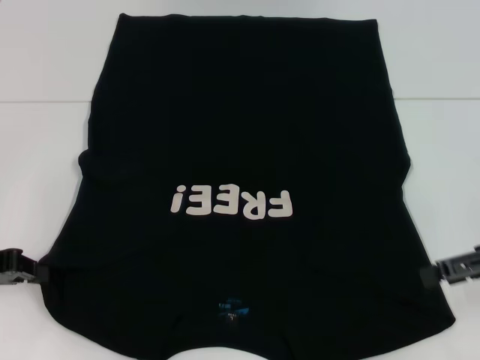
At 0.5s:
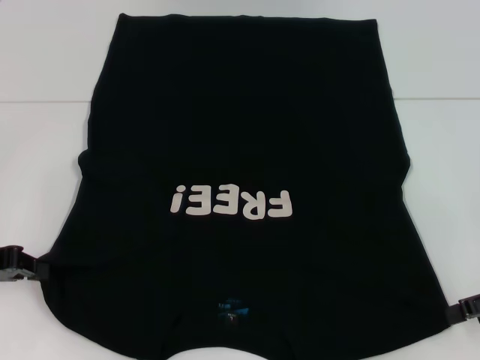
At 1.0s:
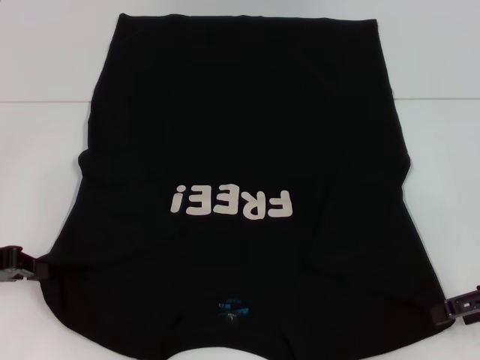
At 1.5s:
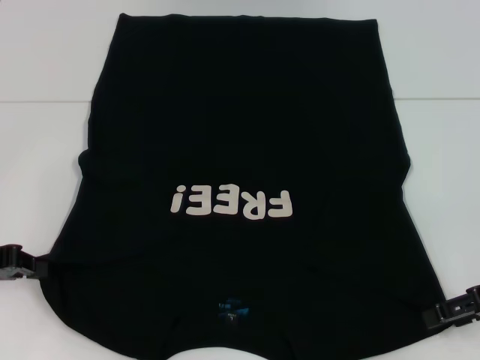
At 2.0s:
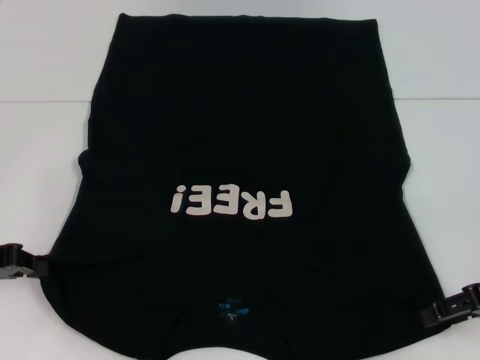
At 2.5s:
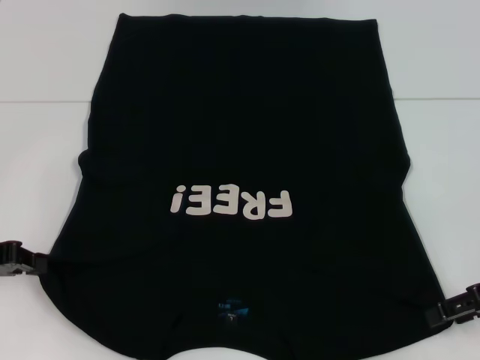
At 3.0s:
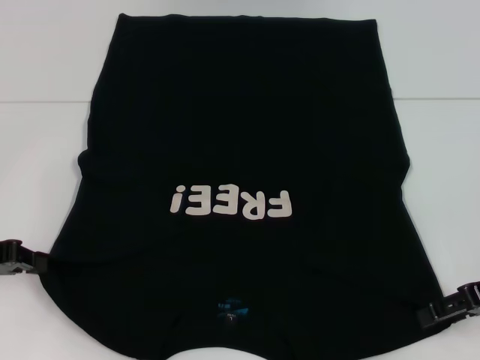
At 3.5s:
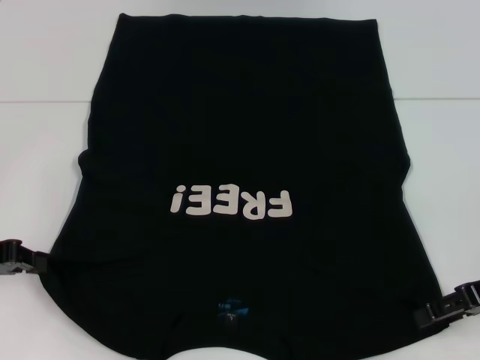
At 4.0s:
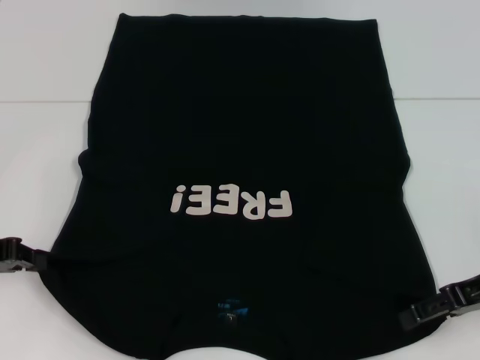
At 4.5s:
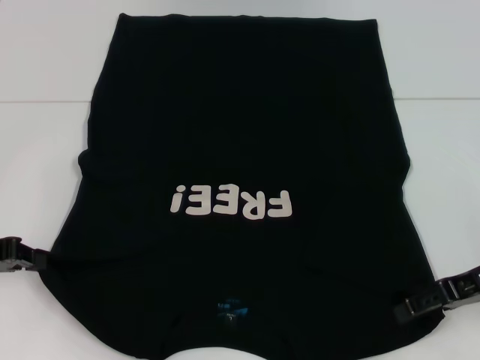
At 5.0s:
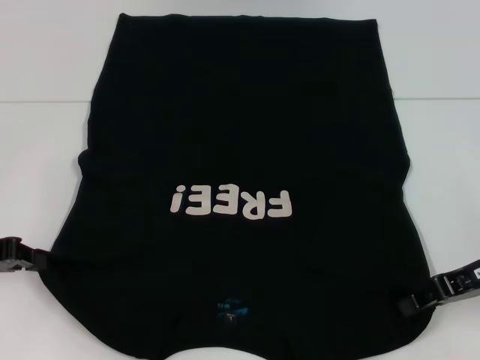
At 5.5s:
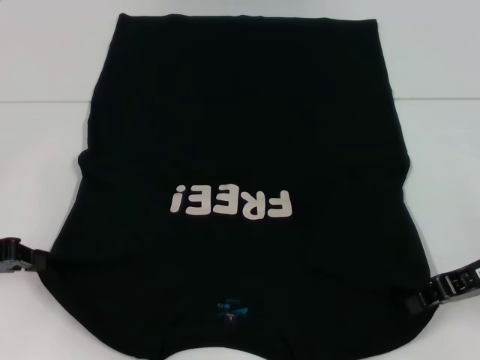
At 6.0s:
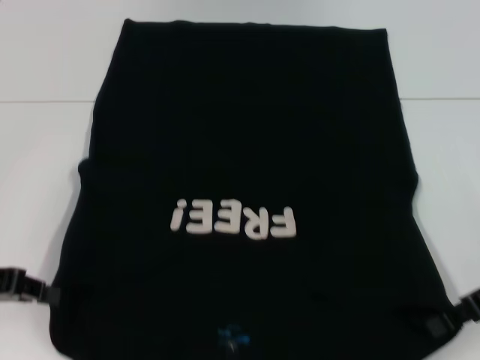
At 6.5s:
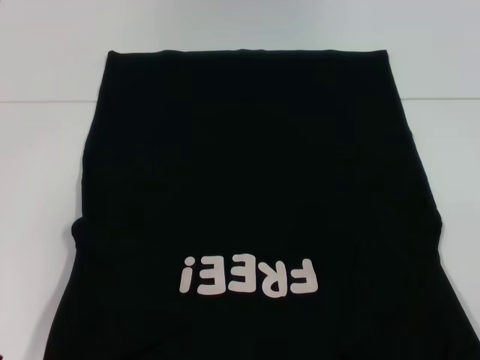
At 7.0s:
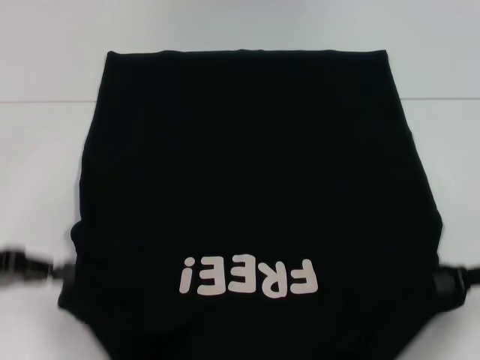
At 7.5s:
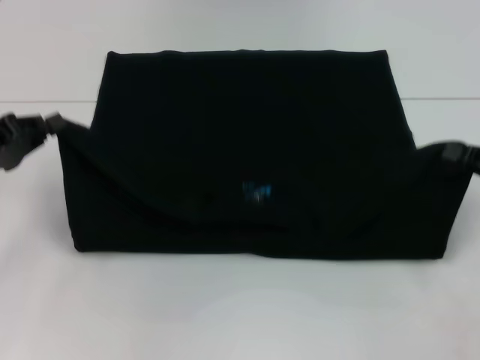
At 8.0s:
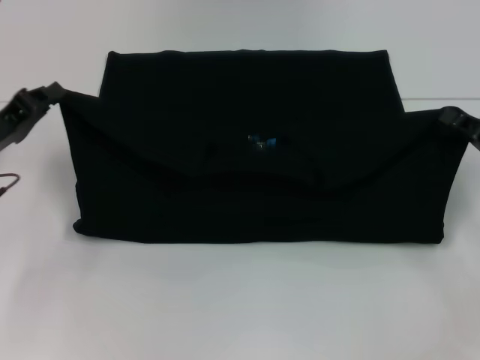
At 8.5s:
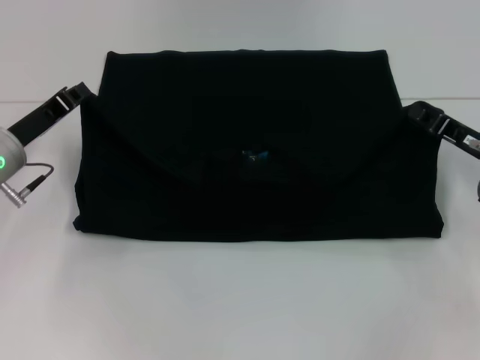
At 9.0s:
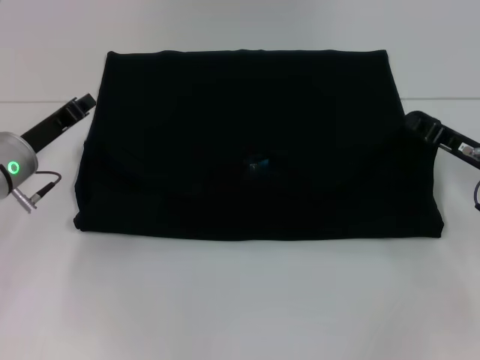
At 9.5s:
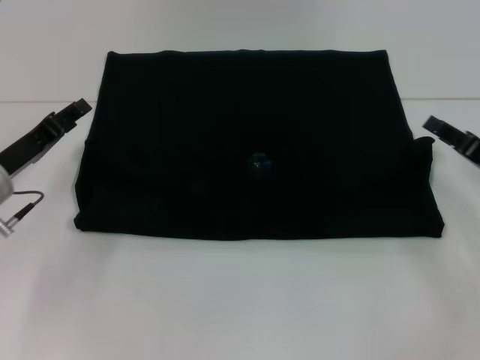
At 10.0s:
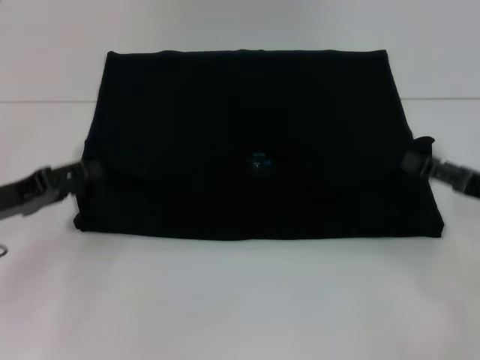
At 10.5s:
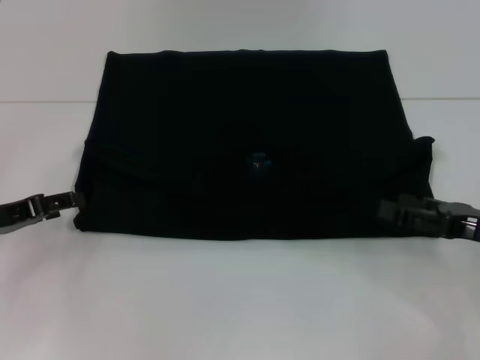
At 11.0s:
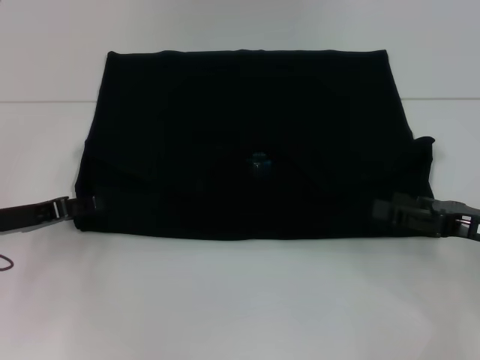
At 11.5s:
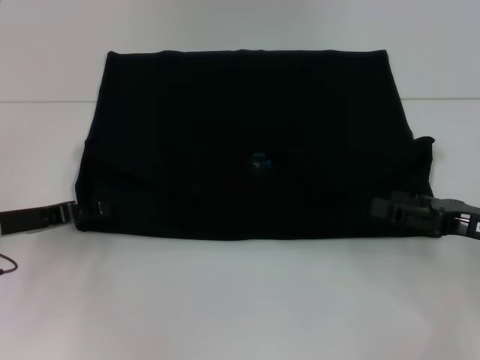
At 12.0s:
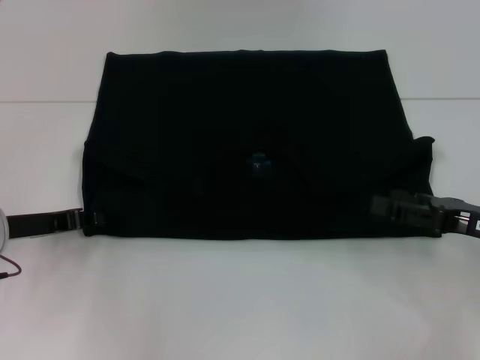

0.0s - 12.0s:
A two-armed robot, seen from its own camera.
Step, 0.0s - 5.5s: Grab the bottom right corner with your right hand.
Step, 6.0s - 9.5s: Fold the clothes with your left hand.
Step, 6.0s - 9.5s: Fold the clothes with your right hand.
0.0s - 4.0s: The grippers make only small movements.
4.0s - 6.0s: The right gripper closes its fingers.
6.0s - 8.0s: The right gripper moves some 5 cm; the left gripper shifts some 5 cm forward.
8.0s - 10.0s: The right gripper opens its fingers. Meanwhile the left gripper opens its fingers.
10.0s - 12.0s: The left gripper closes its fingers.

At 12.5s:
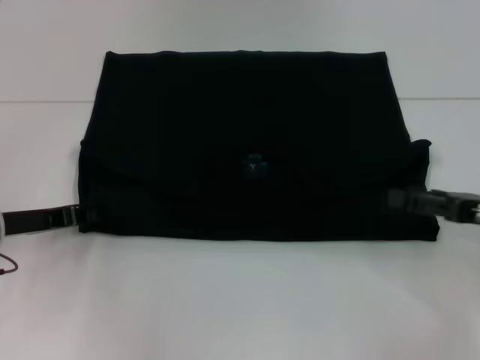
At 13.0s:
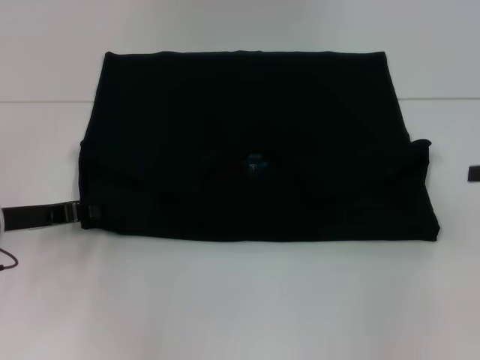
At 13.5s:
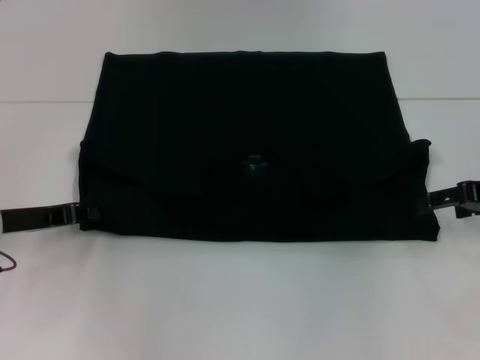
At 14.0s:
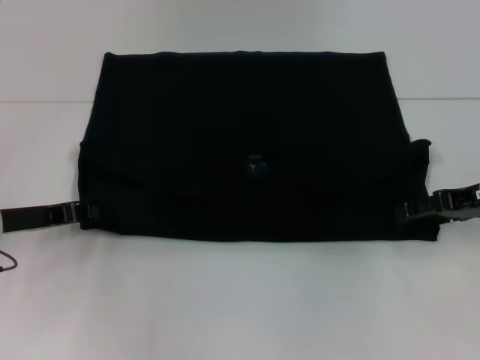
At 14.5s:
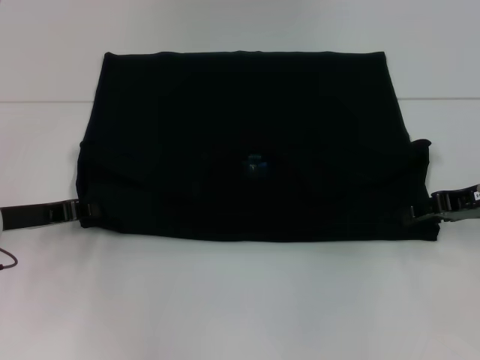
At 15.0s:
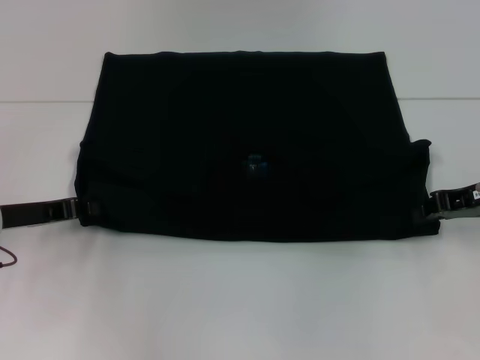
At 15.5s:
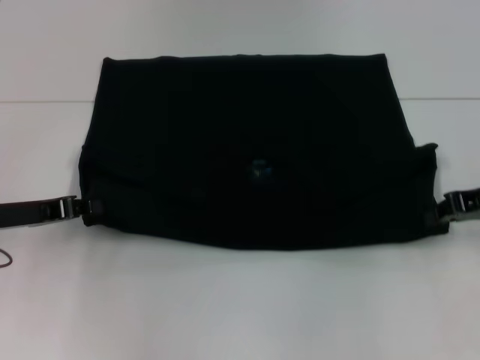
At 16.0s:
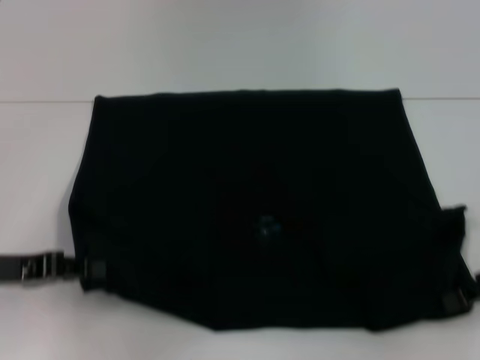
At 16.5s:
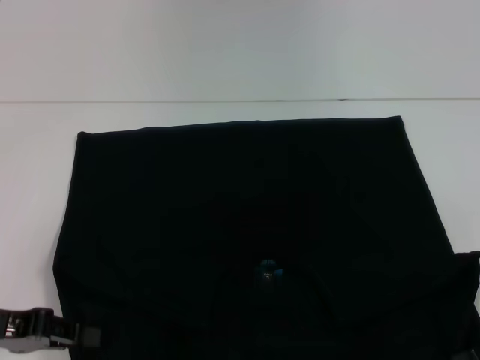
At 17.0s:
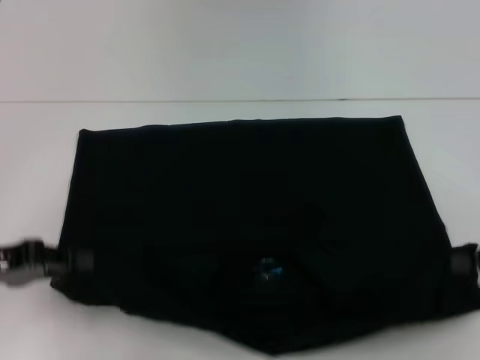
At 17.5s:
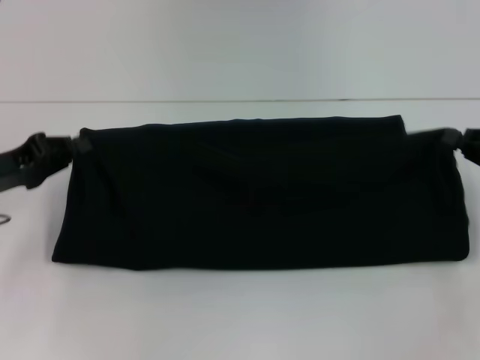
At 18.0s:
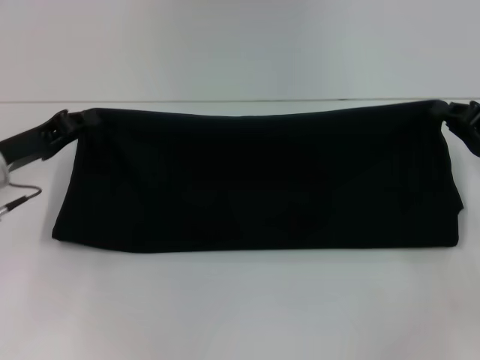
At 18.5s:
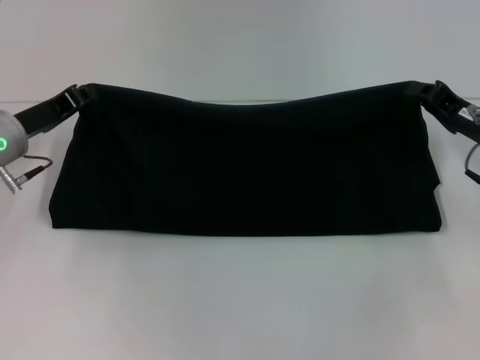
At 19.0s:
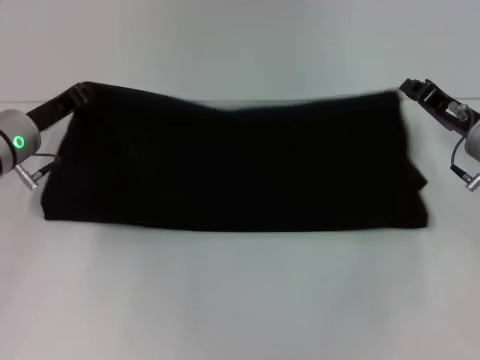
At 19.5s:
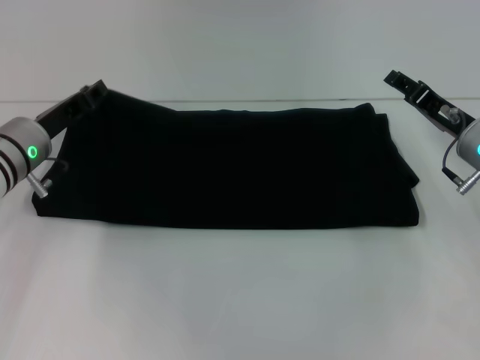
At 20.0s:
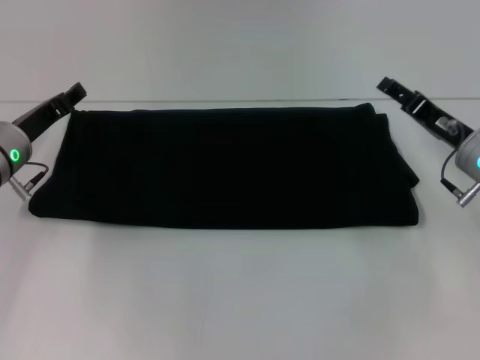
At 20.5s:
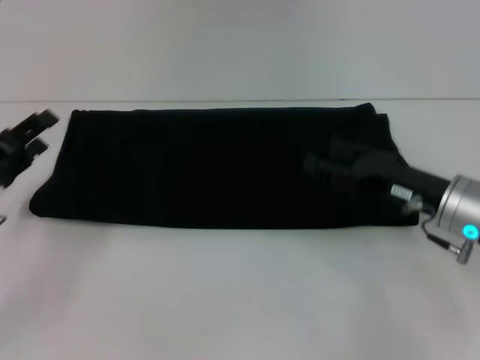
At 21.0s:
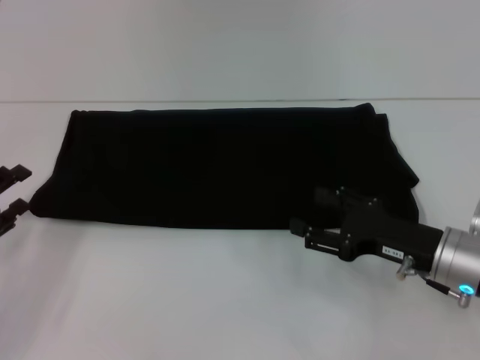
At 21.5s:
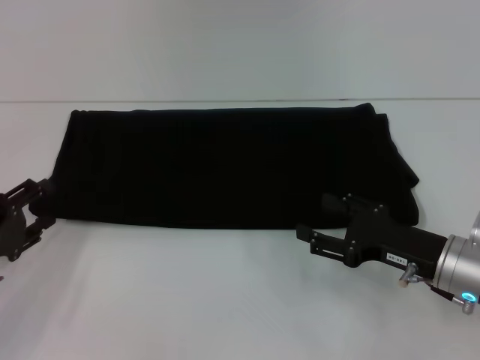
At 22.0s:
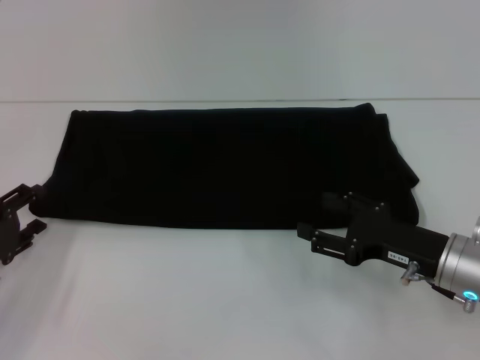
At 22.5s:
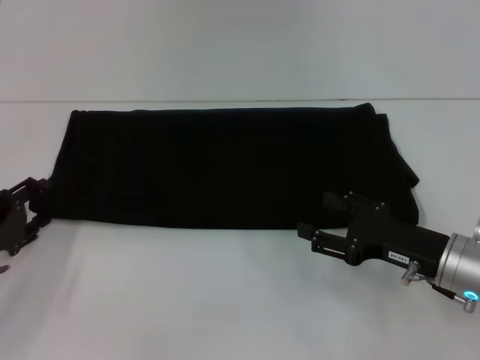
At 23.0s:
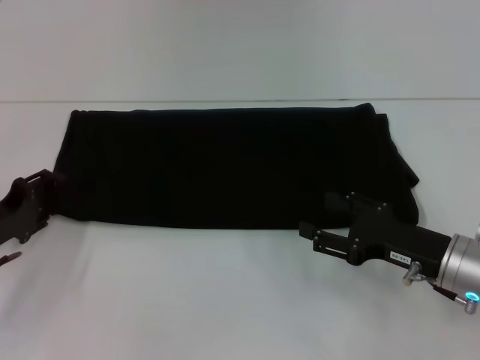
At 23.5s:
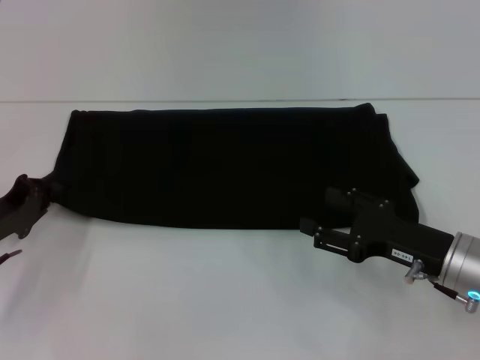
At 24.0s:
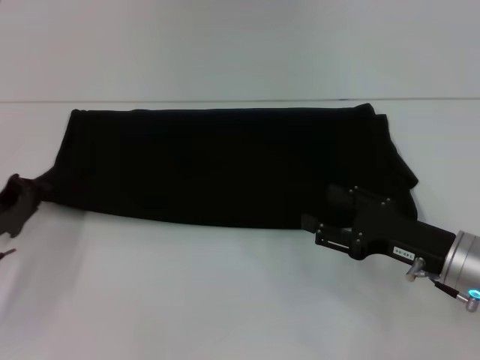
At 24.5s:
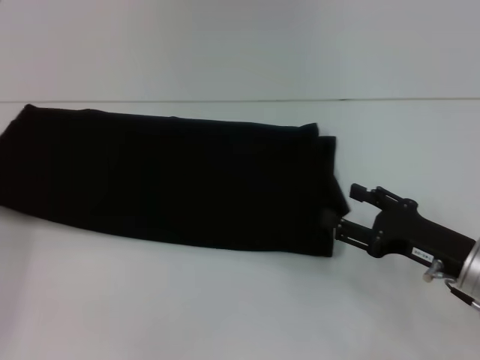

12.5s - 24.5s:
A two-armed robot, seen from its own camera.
Step, 12.5s - 16.0s: Pull the clothes with your left hand.
Step, 12.5s - 16.0s: Pull the clothes with your right hand.
Step, 16.5s - 19.5s: Fold the clothes with your right hand.
12.5s - 14.5s: The right gripper heads forward, covering approximately 5 cm, and goes to the right and returns, about 5 cm each way.
14.5s - 16.5s: Both grippers travel together backward, about 10 cm. The right gripper closes up.
16.5s - 18.5s: The left gripper heads forward, covering about 15 cm. Meanwhile the right gripper goes some 10 cm forward and to the left.
18.5s - 20.5s: The right gripper heads backward and to the left, covering roughly 5 cm, and opens its fingers. Meanwhile the left gripper travels backward by some 10 cm, and opens up.
20.5s - 22.5s: The right gripper shifts by roughly 5 cm.
22.5s - 24.5s: The left gripper goes about 5 cm to the left, and closes.

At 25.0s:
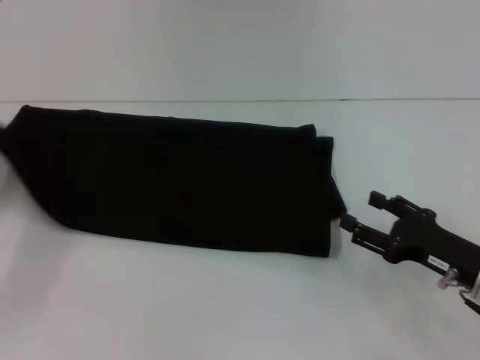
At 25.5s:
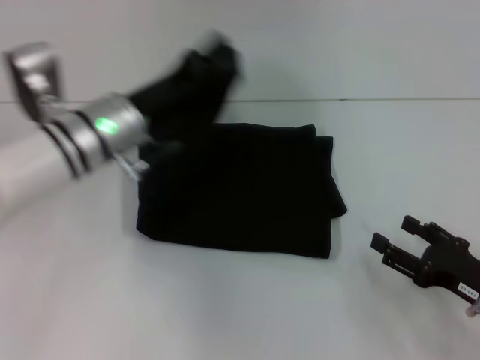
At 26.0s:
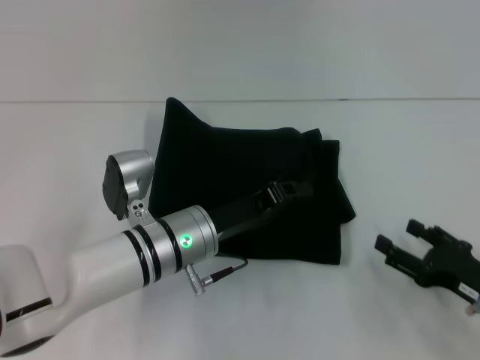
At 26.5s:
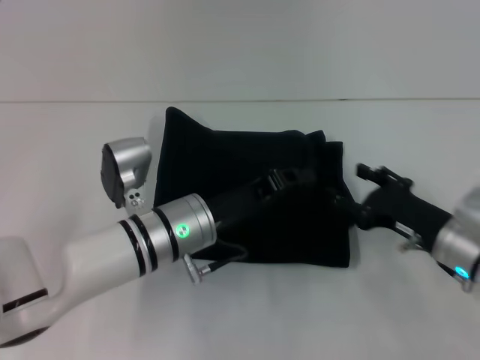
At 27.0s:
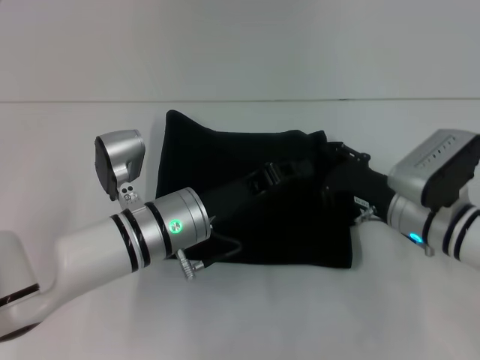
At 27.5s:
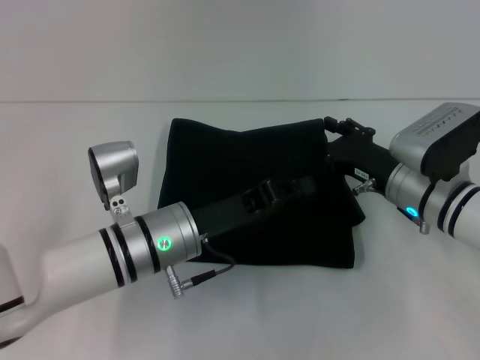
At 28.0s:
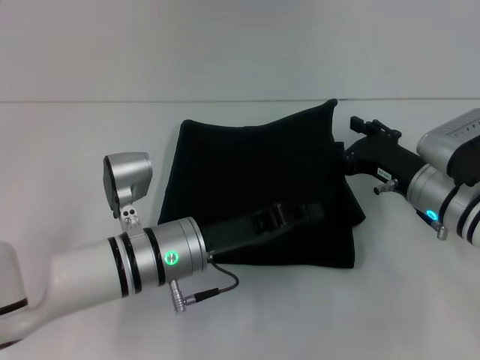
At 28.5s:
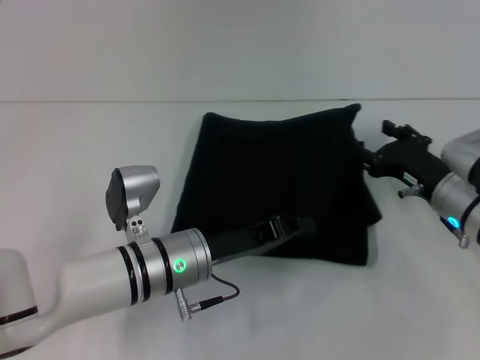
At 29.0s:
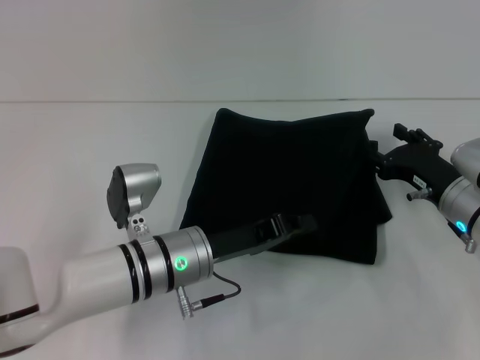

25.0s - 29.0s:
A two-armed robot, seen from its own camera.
Step, 25.0s - 28.0s: Fold the clothes with your left hand.
25.0s - 27.0s: The left gripper moves to the right, approximately 25 cm. Meanwhile the right gripper is displaced forward and to the left by approximately 10 cm.
